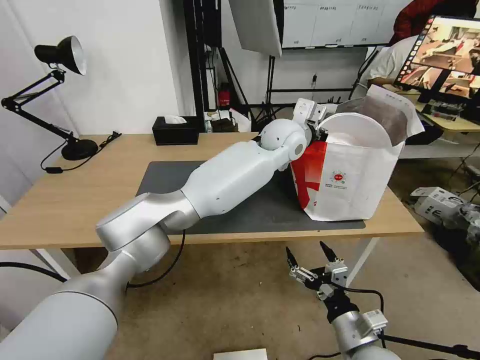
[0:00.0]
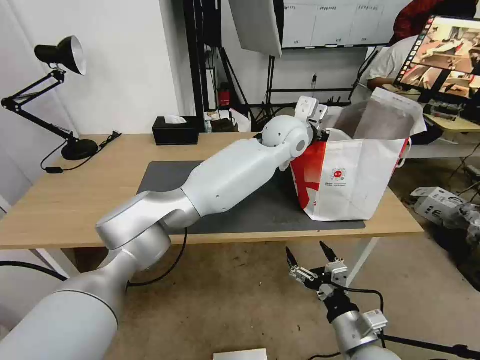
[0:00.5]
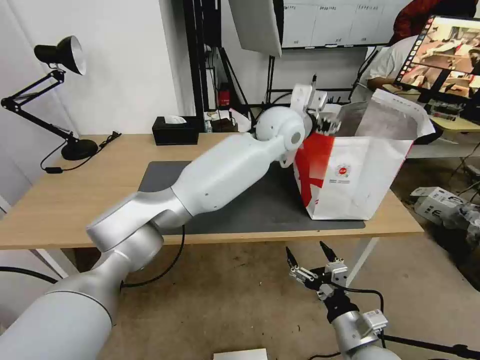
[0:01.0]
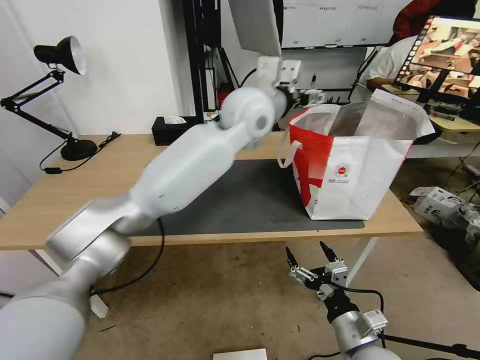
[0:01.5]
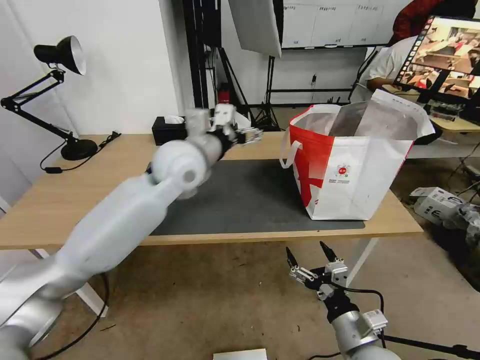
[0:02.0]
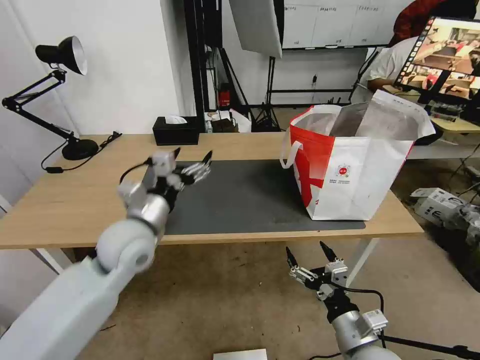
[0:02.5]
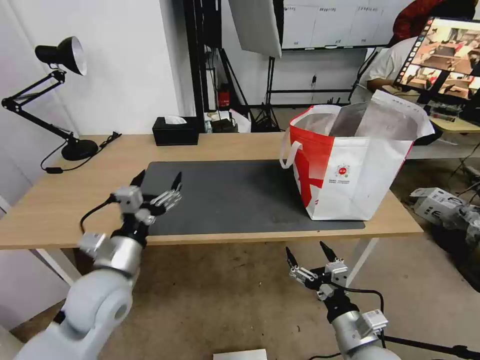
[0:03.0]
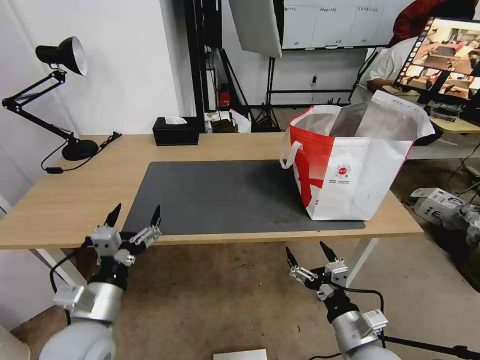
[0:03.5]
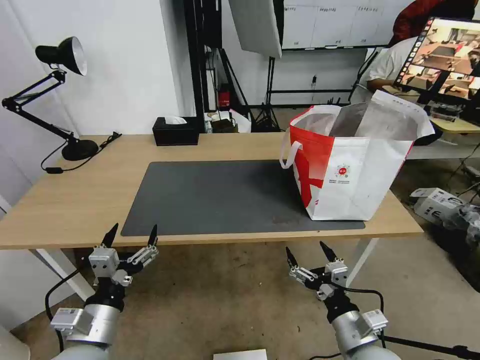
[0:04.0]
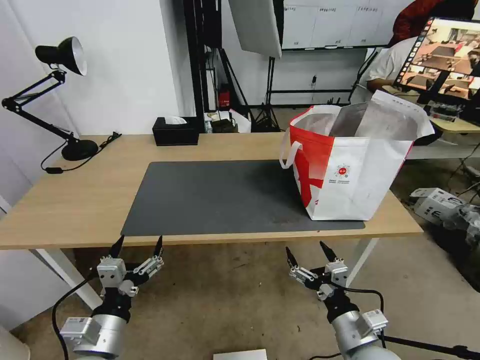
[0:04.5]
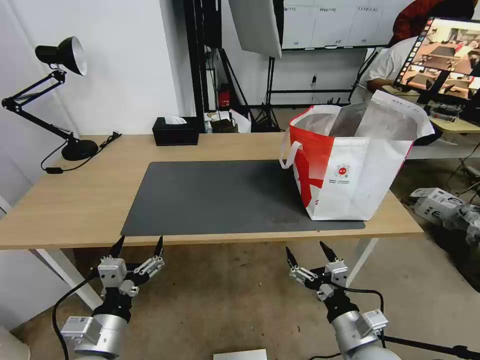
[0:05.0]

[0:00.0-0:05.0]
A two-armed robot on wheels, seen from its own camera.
Task of the whole recording: Pick up the trash from the table and place it into the takeout bag.
0:00.0 to 0:02.5: The left gripper heads to the left and backward, covering about 35 cm, and opens its fingers.
0:02.5 to 0:05.0: The left gripper shifts about 25 cm backward and downward.
